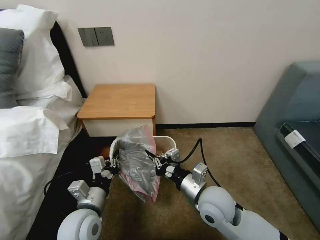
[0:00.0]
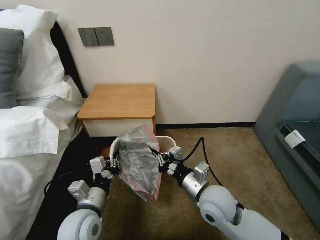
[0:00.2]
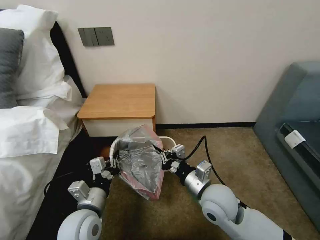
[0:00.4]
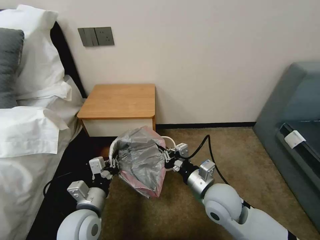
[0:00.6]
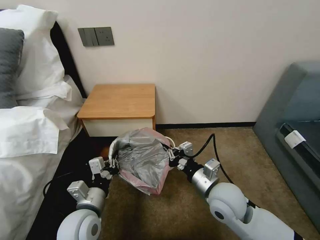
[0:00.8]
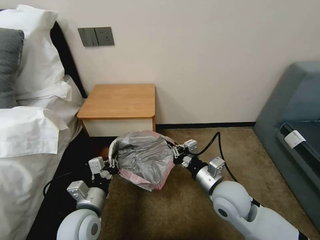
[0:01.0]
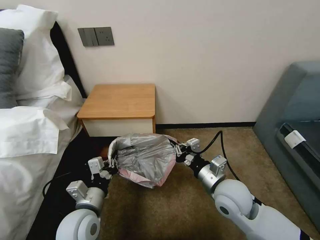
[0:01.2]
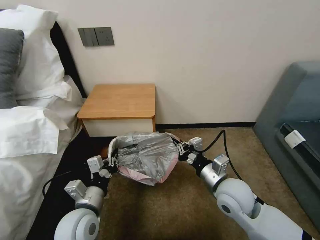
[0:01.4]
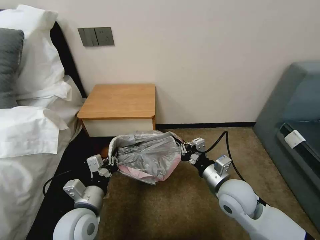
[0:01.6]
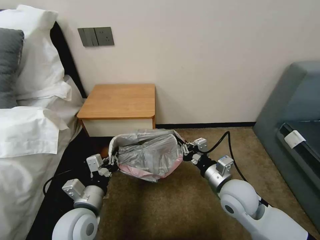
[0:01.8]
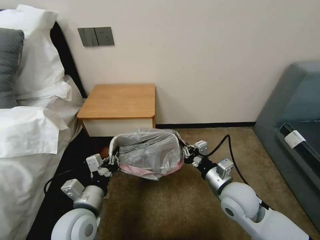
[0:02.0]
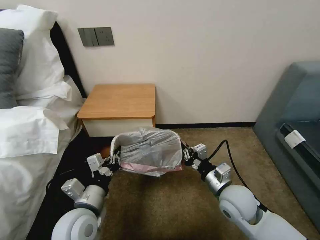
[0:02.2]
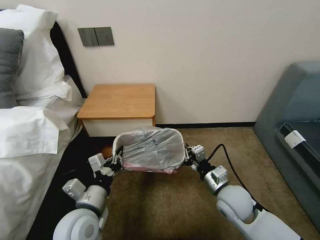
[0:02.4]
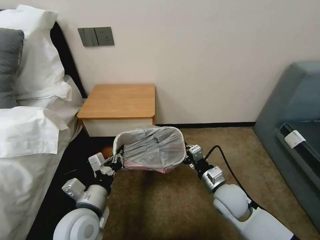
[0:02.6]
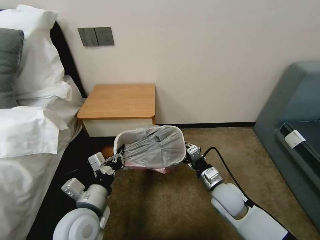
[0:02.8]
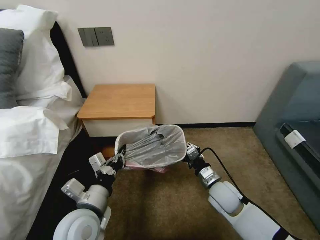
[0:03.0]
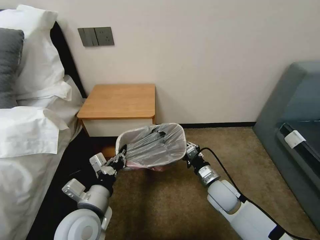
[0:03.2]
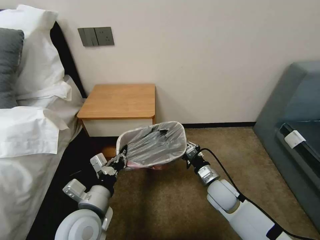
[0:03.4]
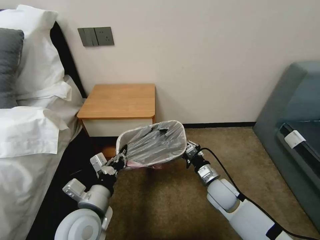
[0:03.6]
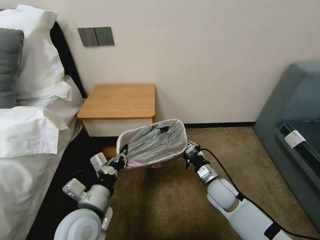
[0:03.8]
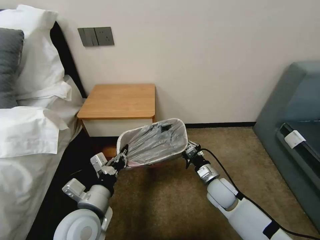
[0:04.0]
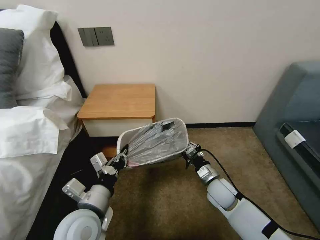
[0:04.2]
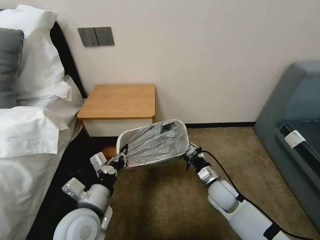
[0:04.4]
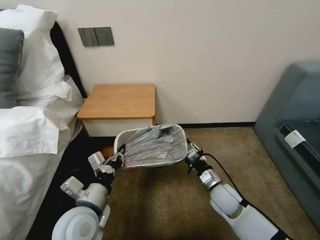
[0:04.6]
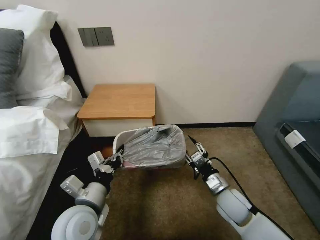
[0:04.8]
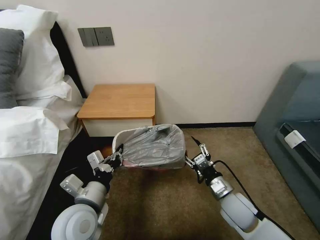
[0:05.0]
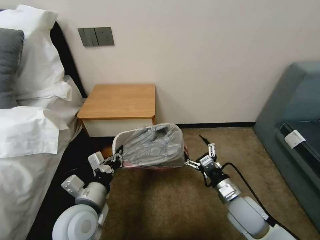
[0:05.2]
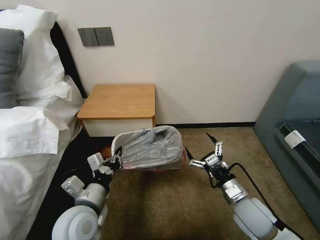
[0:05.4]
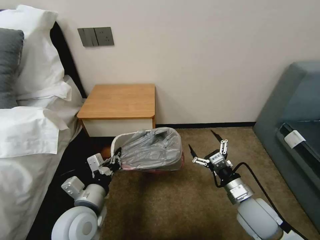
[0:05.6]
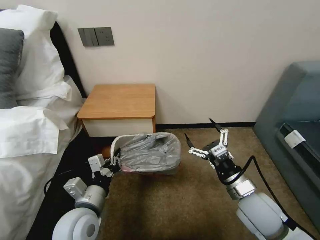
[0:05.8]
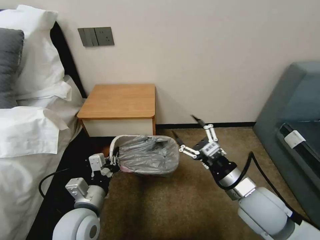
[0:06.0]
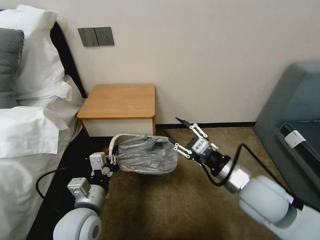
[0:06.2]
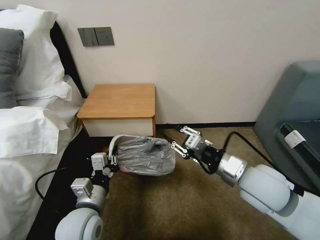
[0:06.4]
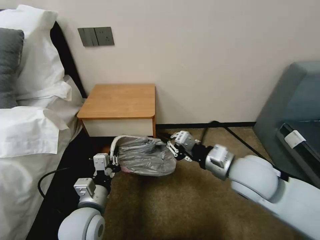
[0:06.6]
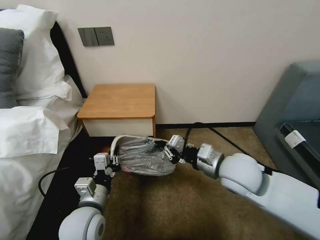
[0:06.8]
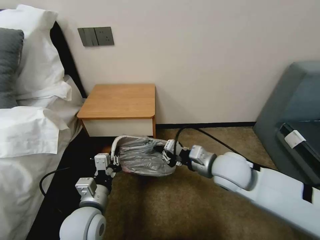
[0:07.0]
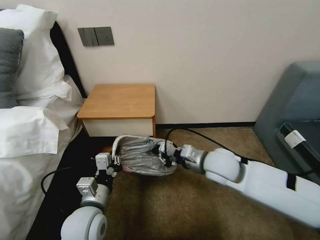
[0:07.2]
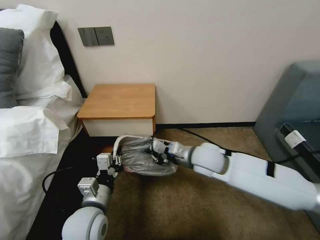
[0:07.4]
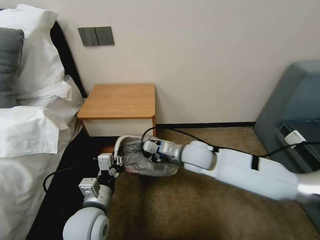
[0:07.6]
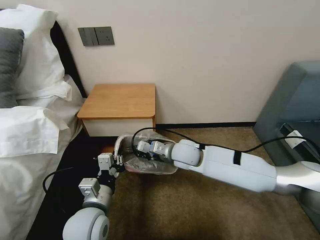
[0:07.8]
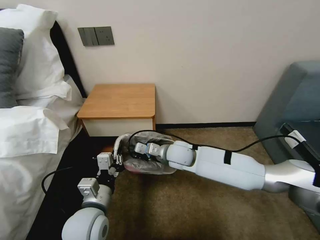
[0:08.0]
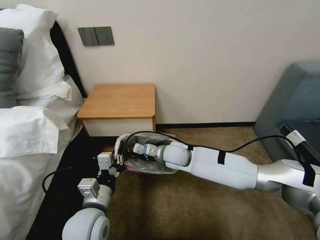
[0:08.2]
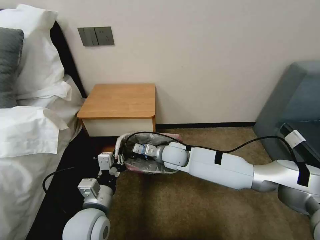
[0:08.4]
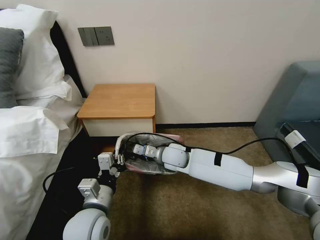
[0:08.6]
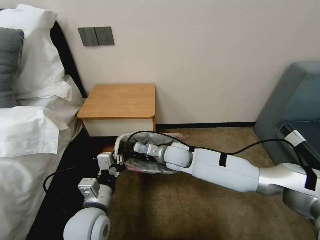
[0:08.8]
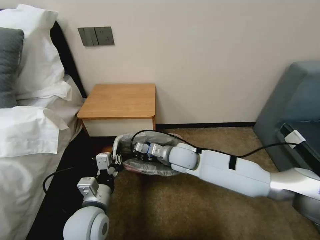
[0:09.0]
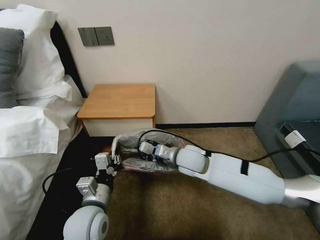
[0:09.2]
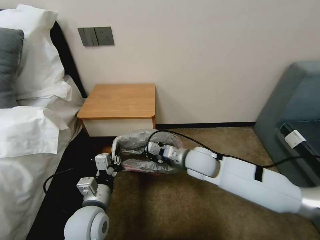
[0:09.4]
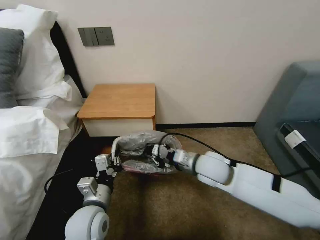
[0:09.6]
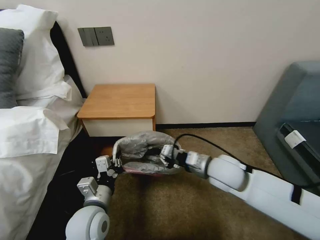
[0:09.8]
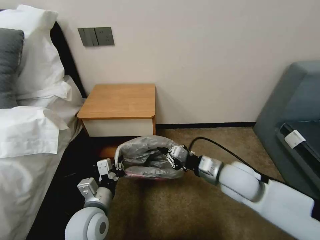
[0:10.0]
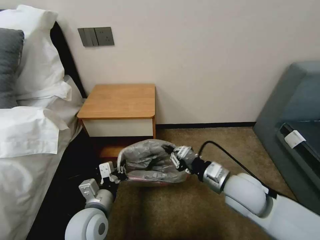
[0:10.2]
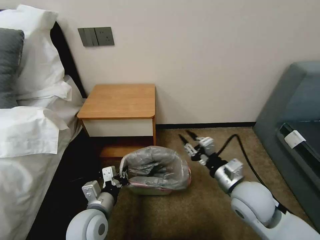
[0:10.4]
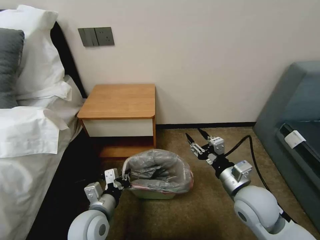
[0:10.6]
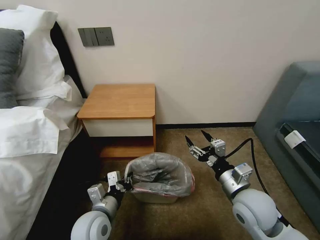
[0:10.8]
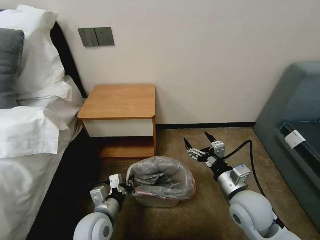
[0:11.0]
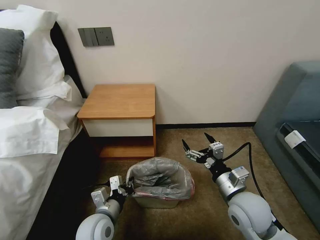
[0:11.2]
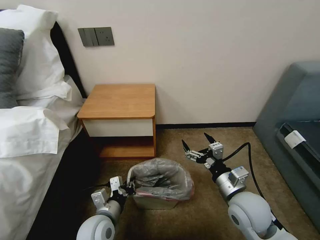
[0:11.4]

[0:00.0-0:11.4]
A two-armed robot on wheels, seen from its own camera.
Task of the whole recording: Pick up the garbage bag from the table and place it over the trash can.
0:00.0 to 0:01.4: The right gripper shifts roughly 5 cm to the right.
0:01.4 to 0:02.8: The right gripper is displaced downward by some 10 cm.
0:02.8 to 0:04.2: The grippers make only small movements.
0:04.2 to 0:05.6: The right gripper travels backward, upward and to the right by about 15 cm, and opens up.
0:05.6 to 0:07.2: The right gripper moves forward, to the left and upward, roughly 15 cm, and closes.
0:07.2 to 0:08.6: The right gripper is displaced to the left, downward and forward by approximately 15 cm.
0:08.6 to 0:10.0: The right gripper travels to the right, backward and upward by about 20 cm.
0:10.0 to 0:11.4: The right gripper goes approximately 5 cm backward, and opens; the left gripper is displaced downward by about 5 cm.

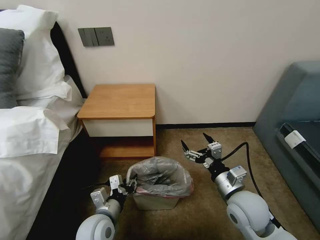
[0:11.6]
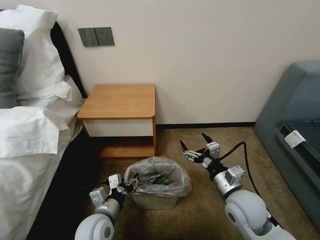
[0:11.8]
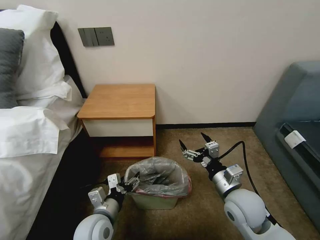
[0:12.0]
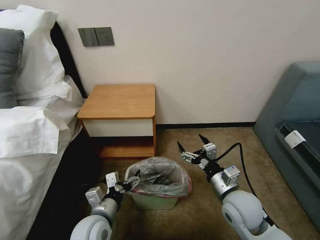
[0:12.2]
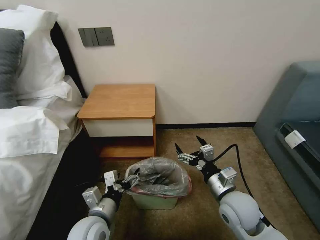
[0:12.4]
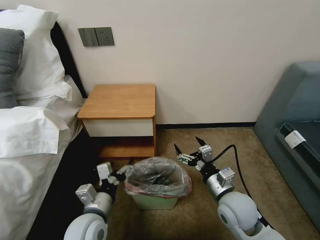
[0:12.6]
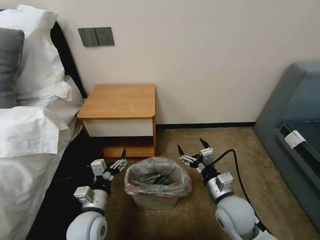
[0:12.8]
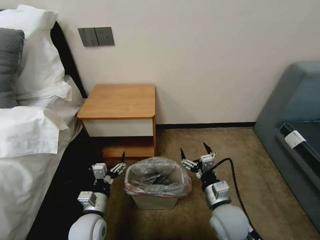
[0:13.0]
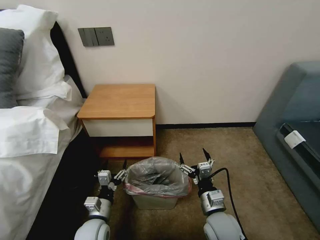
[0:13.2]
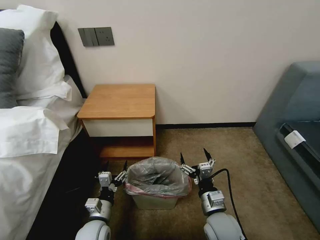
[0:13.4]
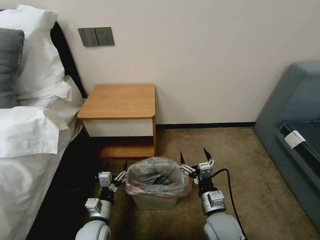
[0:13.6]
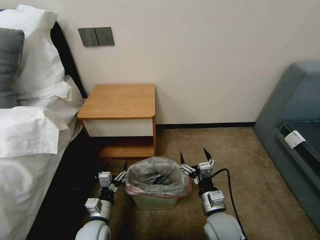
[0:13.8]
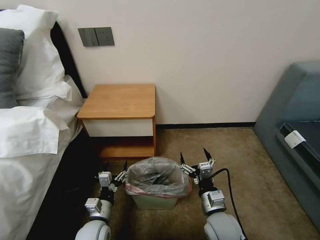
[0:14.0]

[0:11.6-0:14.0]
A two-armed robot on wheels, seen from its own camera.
Task of the whole recording: Pick up the garbage bag from the table and place it over the trash can.
0:11.6 to 0:12.8: The left gripper opens.
0:12.8 to 0:14.0: The right gripper moves downward, about 5 cm; the left gripper is displaced downward by about 10 cm.
